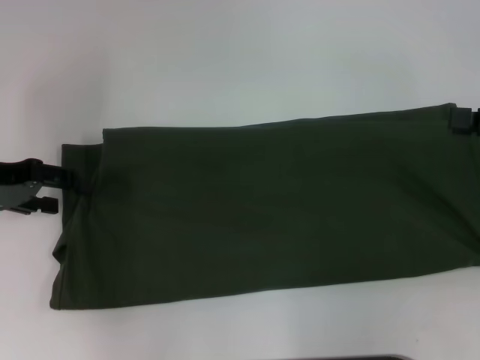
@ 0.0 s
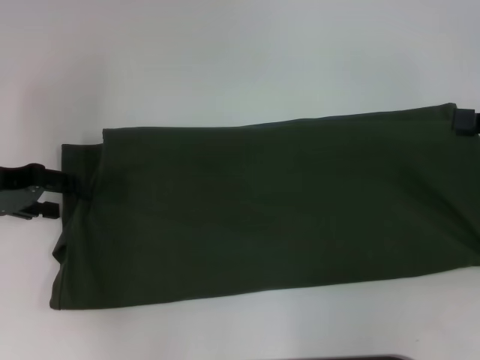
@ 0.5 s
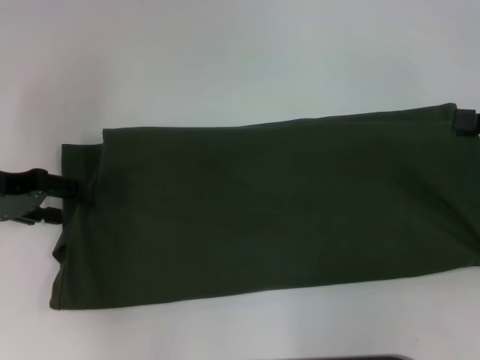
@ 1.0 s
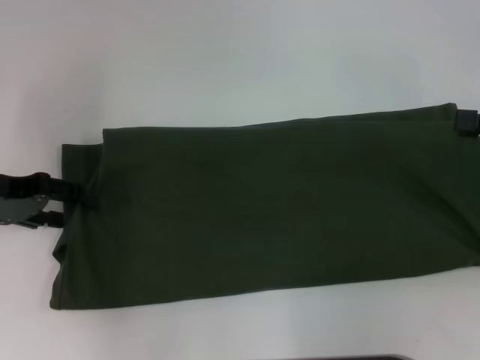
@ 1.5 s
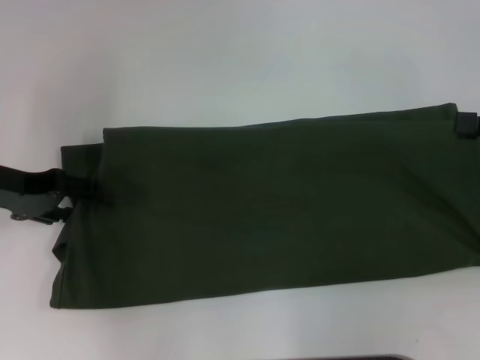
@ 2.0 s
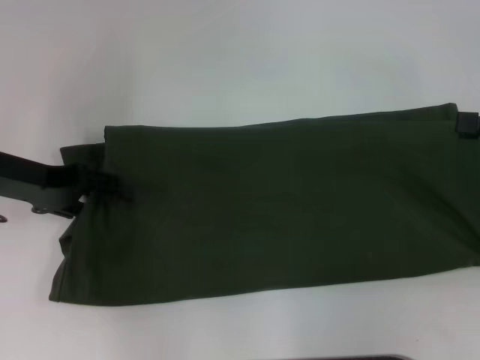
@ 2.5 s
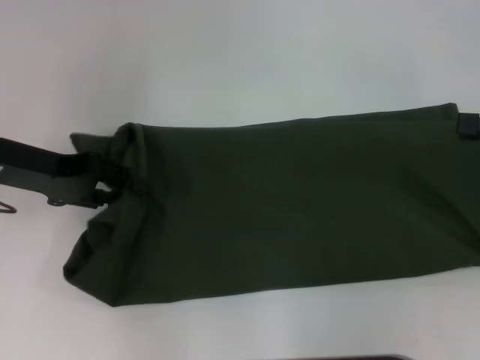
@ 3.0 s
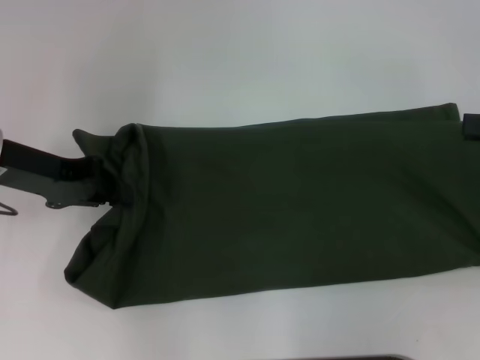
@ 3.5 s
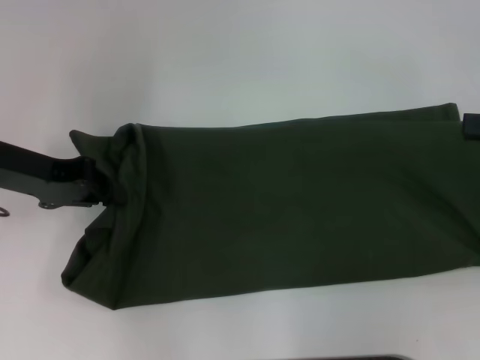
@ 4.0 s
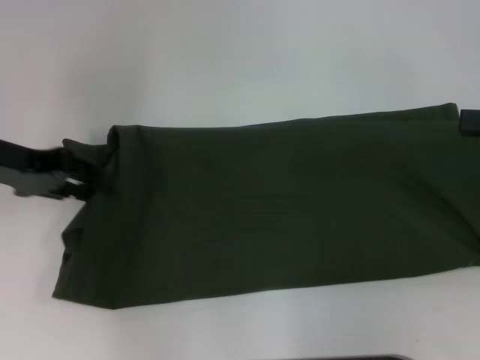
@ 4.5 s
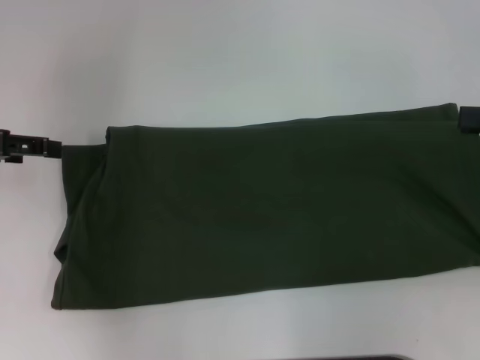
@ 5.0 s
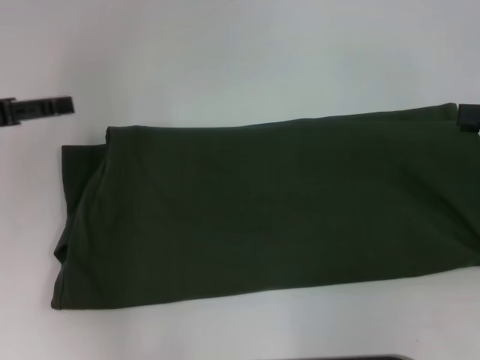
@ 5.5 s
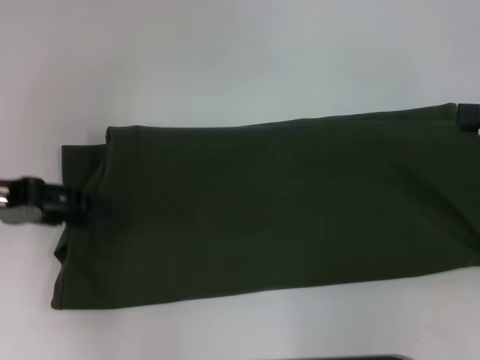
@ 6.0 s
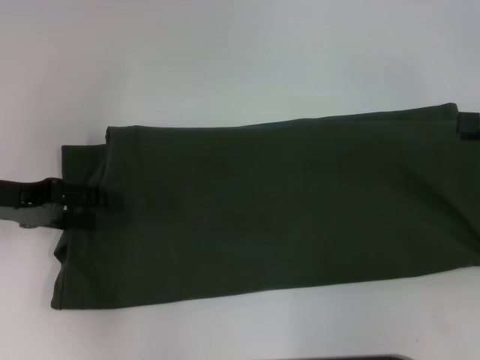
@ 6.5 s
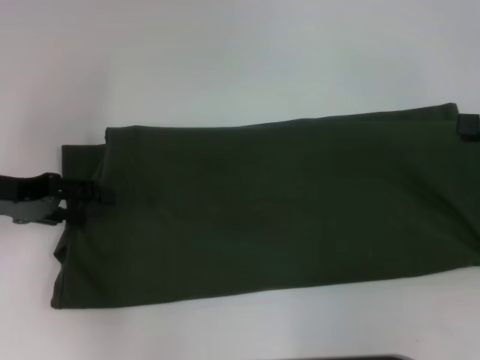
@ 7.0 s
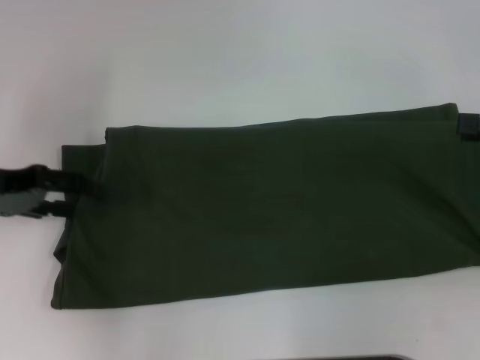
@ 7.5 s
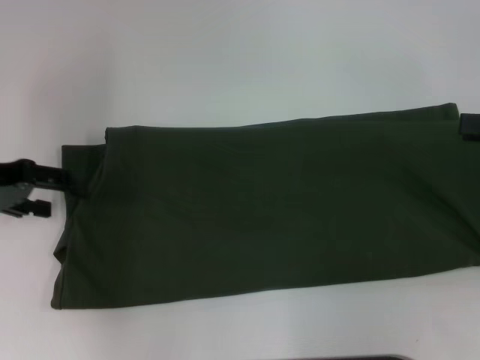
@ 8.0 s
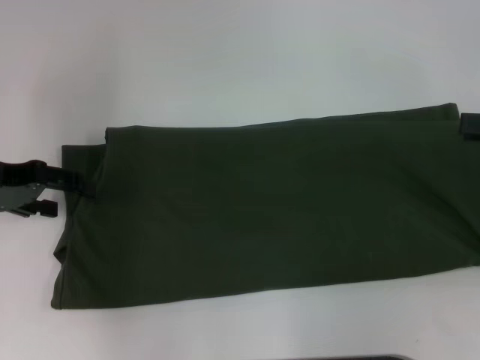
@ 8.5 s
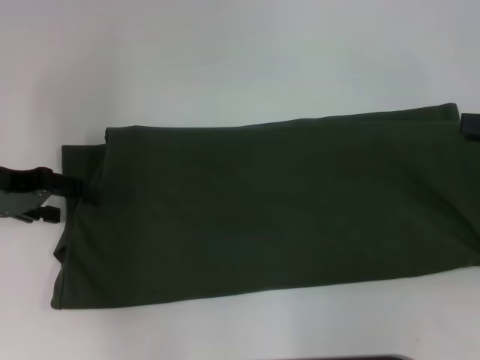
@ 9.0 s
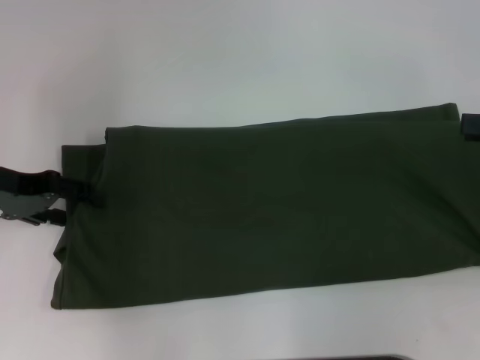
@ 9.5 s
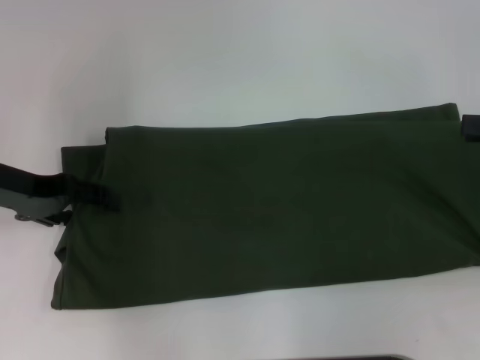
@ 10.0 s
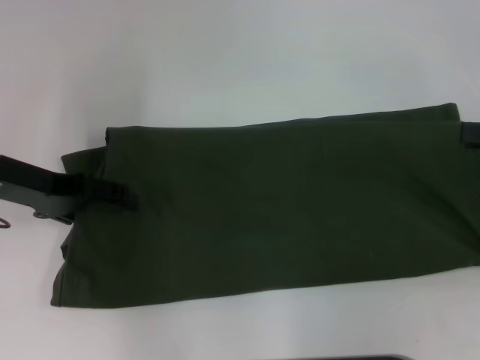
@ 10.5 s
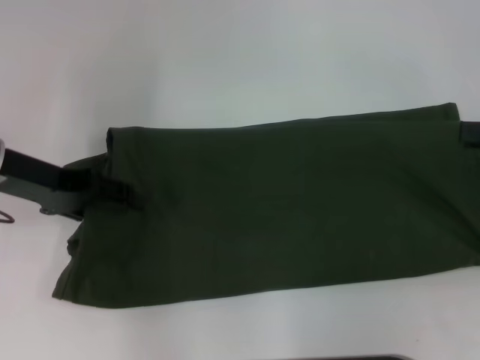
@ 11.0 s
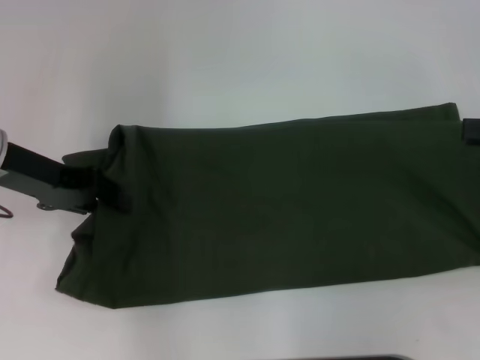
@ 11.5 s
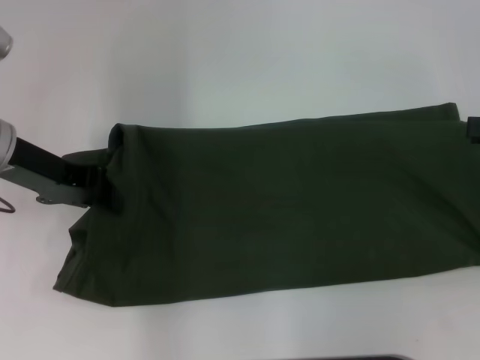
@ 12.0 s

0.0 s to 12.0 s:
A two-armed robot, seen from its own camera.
0.0 to 2.0 s: There are only small adjustments of the grippers.
2.0 to 4.0 s: The left gripper closes up.
4.0 to 6.0 s: The left gripper changes place by some 5 cm, and opens up.
6.0 to 8.0 s: The grippers move only a little.
8.0 to 10.0 s: There are only small adjustments of the grippers.
10.0 to 12.0 s: The left gripper moves roughly 5 cm, and closes up.

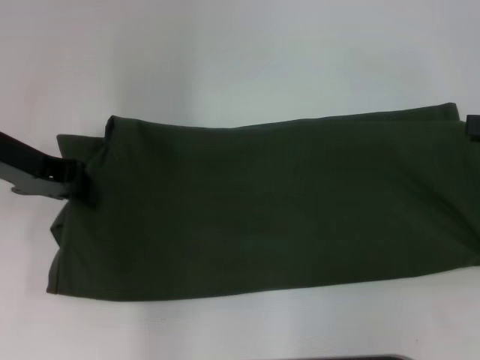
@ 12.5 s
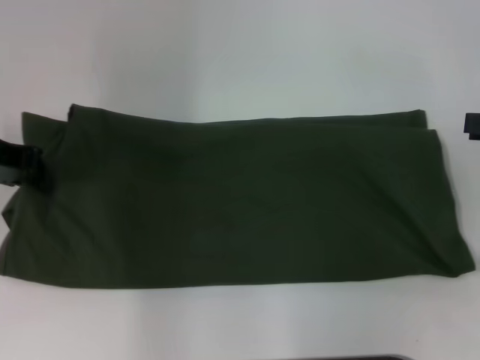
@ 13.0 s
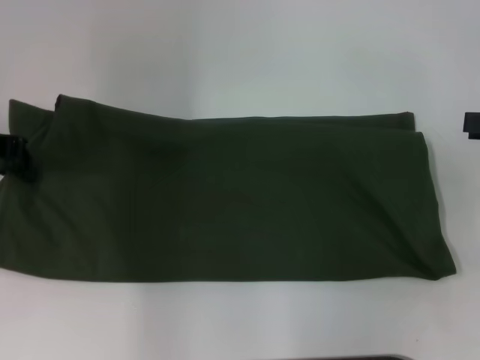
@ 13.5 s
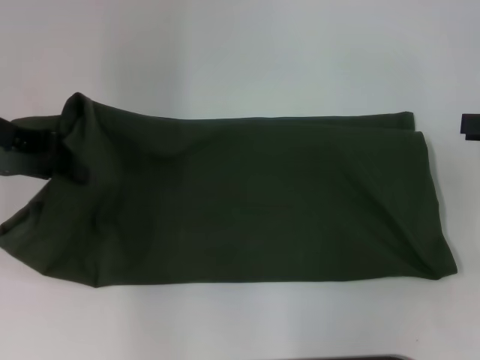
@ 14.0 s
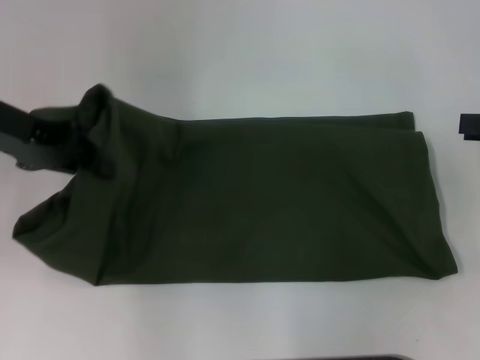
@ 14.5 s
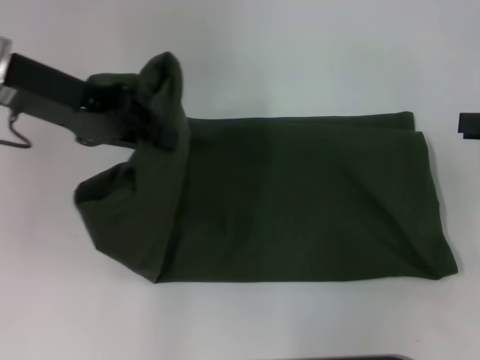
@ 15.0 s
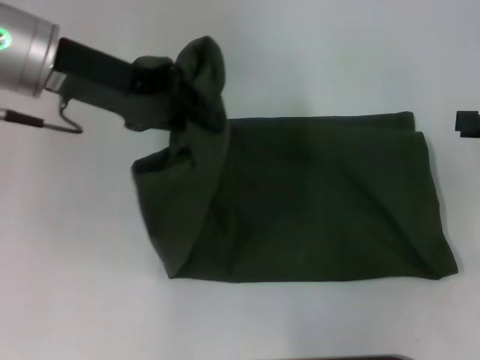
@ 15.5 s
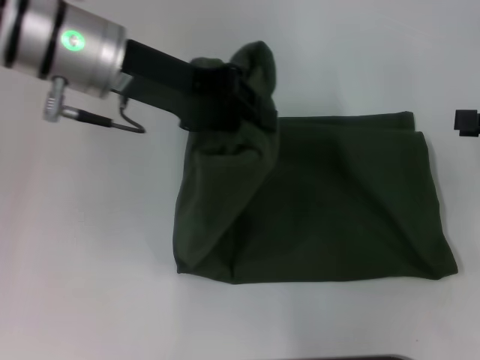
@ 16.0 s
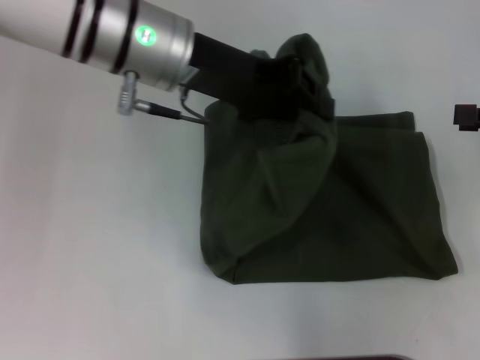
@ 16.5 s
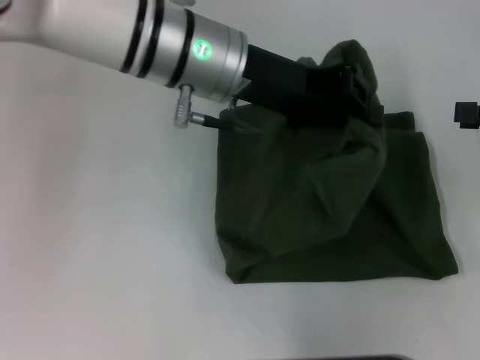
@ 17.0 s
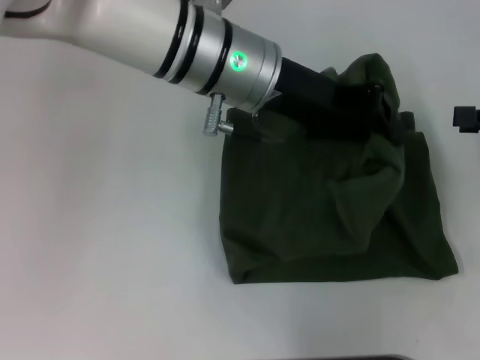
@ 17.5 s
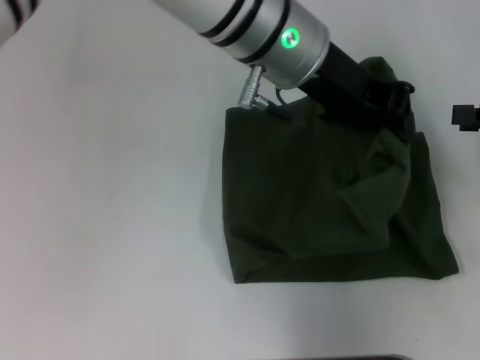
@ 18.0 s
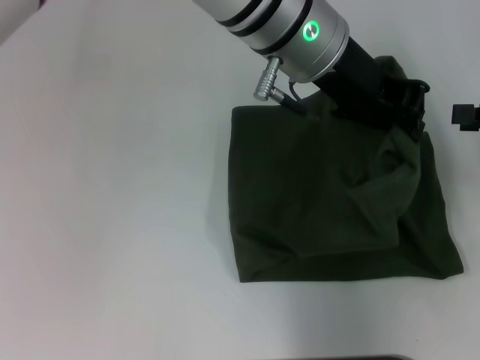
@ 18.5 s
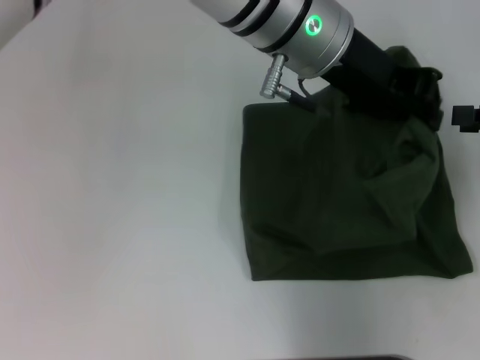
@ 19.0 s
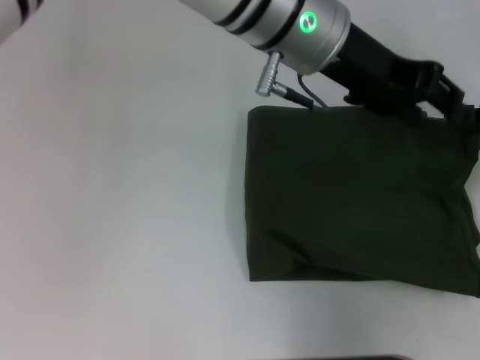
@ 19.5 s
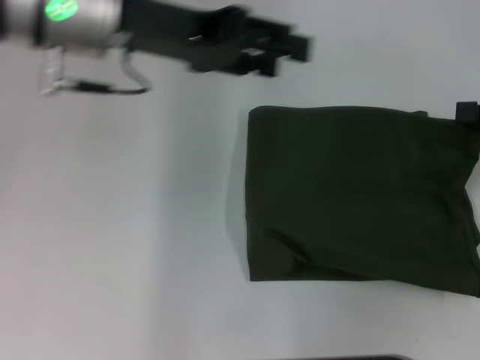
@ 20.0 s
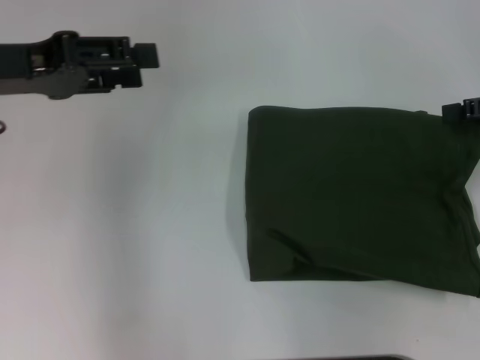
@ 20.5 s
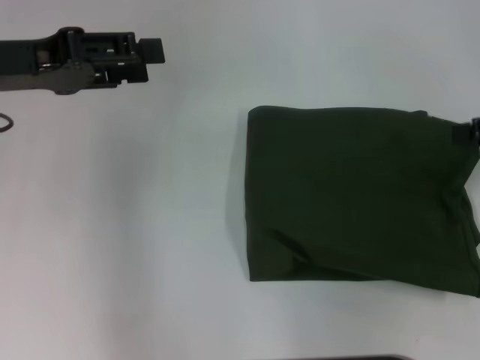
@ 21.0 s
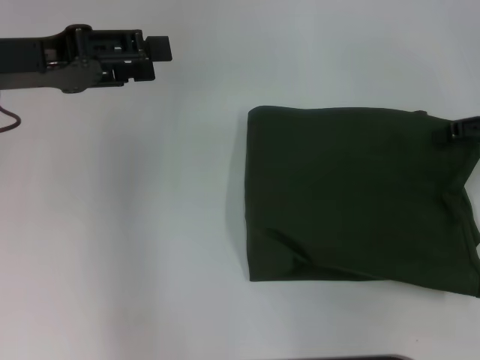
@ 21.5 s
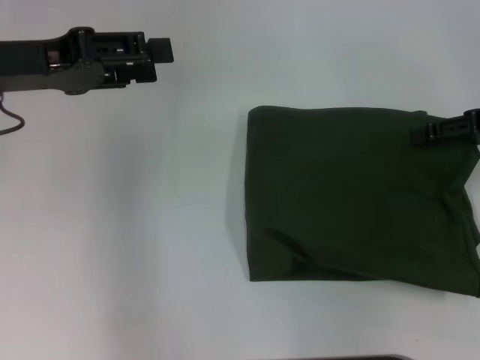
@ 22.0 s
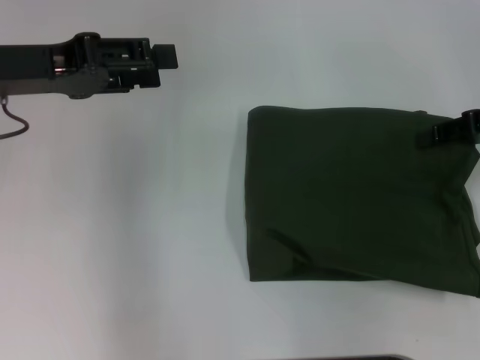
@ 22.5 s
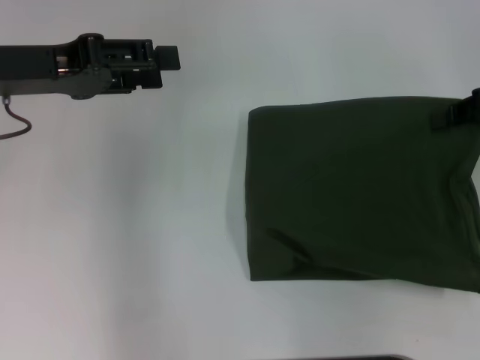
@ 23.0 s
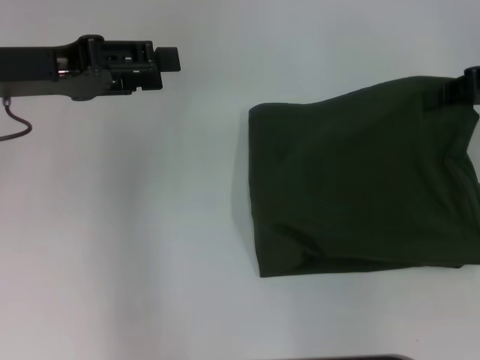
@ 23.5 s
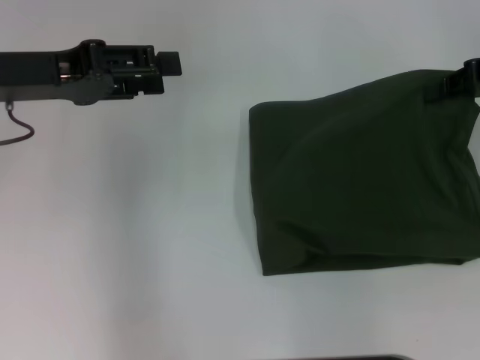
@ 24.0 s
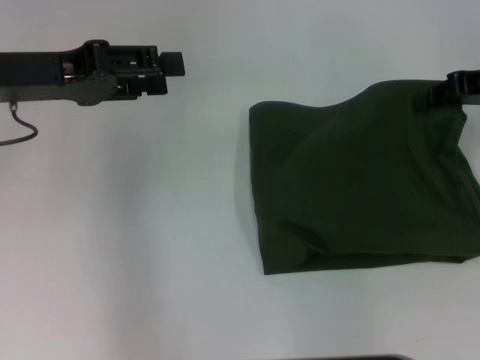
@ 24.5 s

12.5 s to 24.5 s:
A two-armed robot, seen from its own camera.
Step, 12.5 to 19.0 s: Fold the clothes with your left hand.
12.5 to 14.5 s: The grippers move only a little.
14.5 to 16.5 s: The left gripper is displaced to the right by about 15 cm.
16.5 to 18.5 s: The left gripper heads to the right, covering some 10 cm.
18.5 to 20.5 s: The left gripper is displaced to the left by approximately 30 cm, and opens.
20.5 to 22.5 s: The grippers stay close to where they were, moving slightly.
22.5 to 24.5 s: The right gripper closes up.

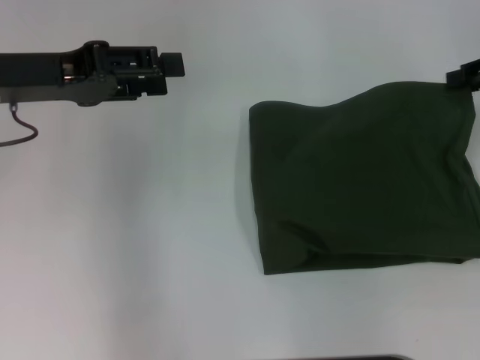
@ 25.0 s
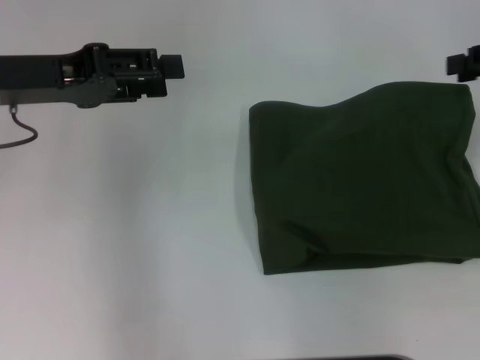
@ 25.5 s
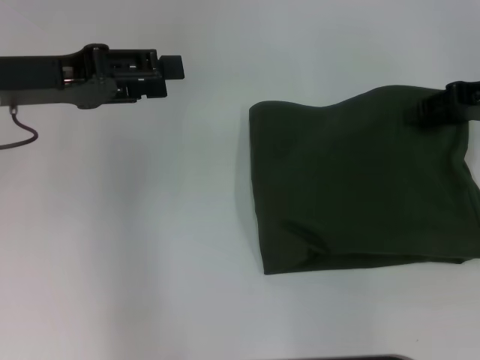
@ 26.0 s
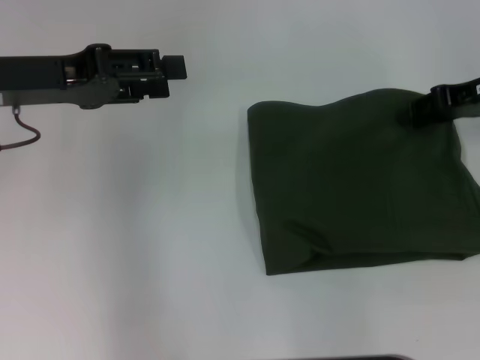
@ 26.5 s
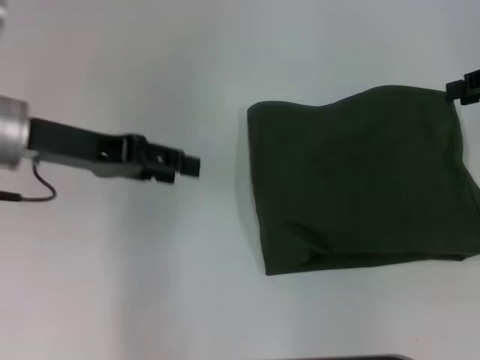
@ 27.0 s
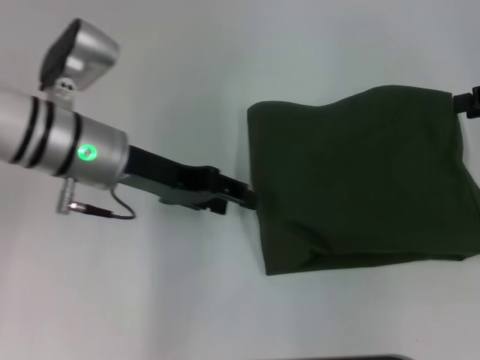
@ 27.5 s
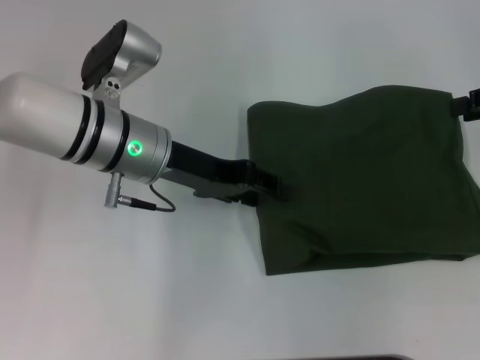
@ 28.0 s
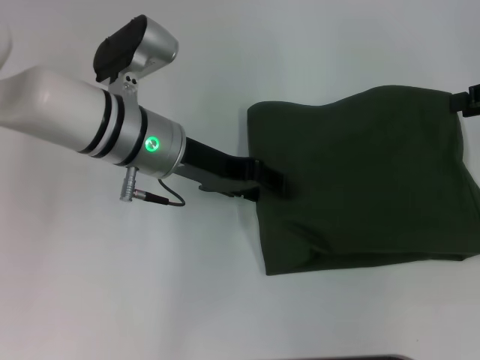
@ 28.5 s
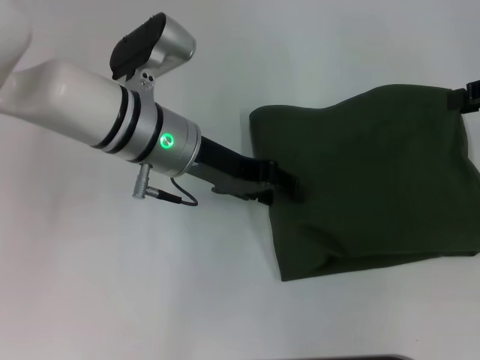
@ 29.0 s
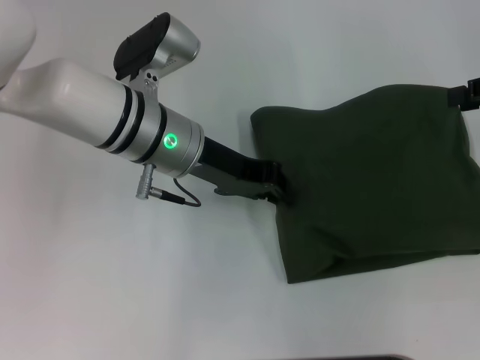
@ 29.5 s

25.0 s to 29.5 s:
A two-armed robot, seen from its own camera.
25.0 to 27.0 s: There are only small adjustments of the grippers.
27.0 to 29.5 s: The left gripper moves to the right, some 15 cm, and closes up.
